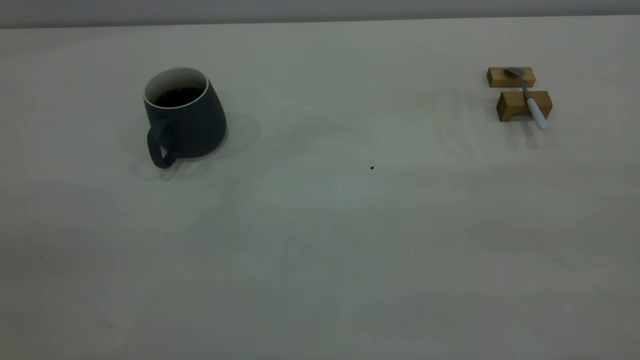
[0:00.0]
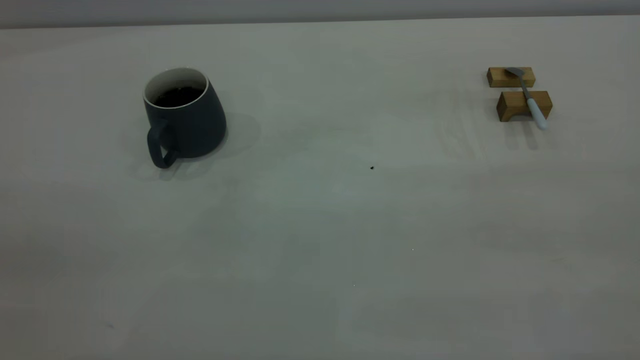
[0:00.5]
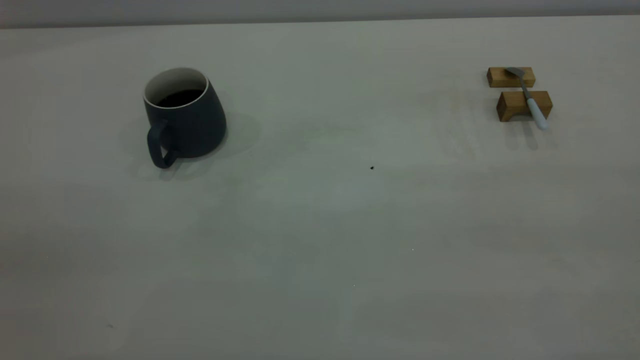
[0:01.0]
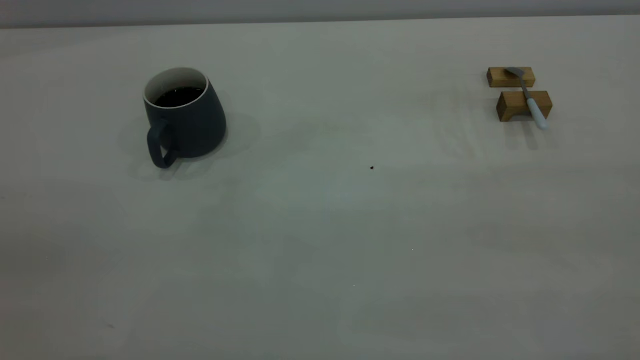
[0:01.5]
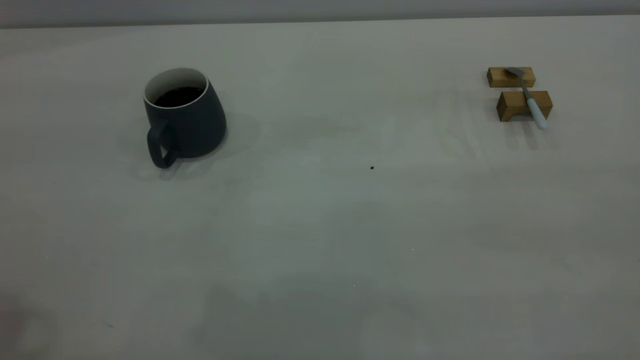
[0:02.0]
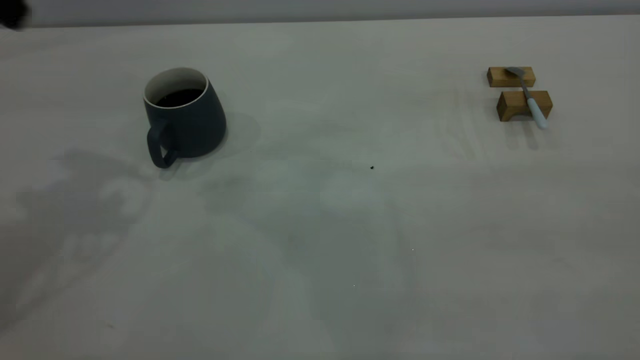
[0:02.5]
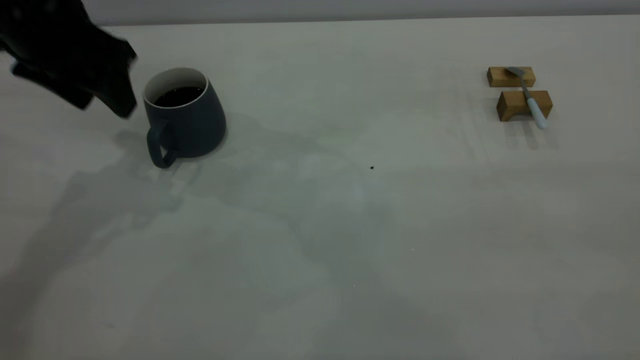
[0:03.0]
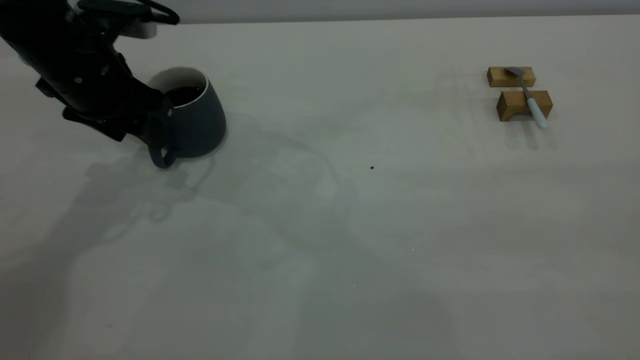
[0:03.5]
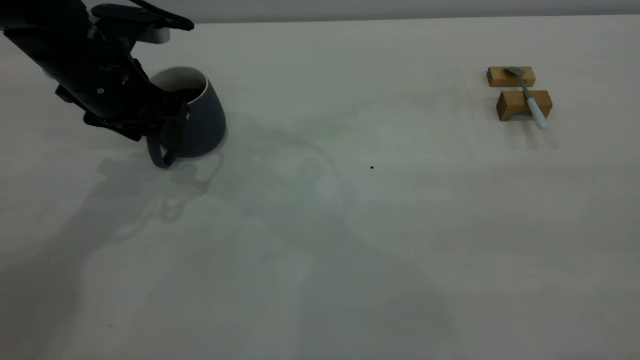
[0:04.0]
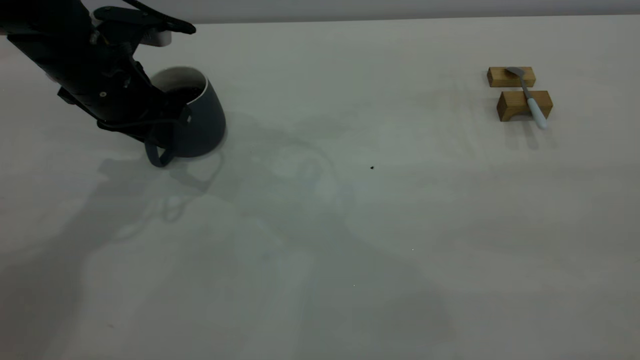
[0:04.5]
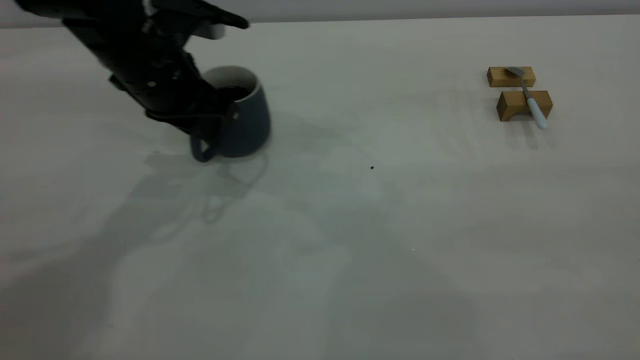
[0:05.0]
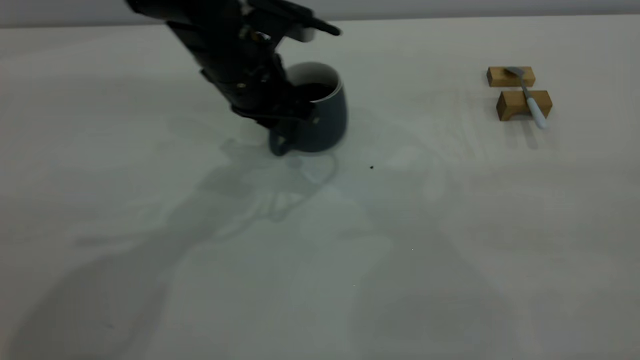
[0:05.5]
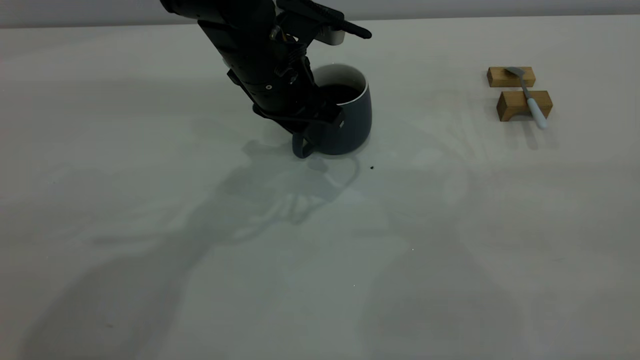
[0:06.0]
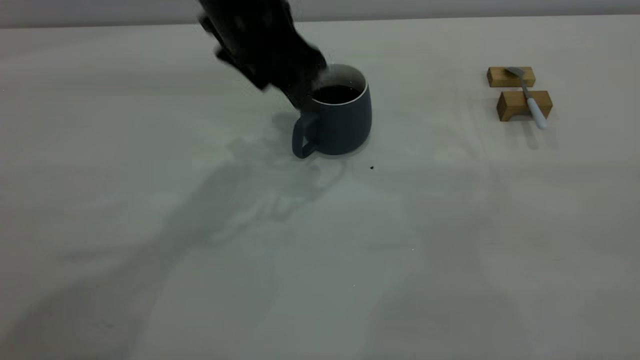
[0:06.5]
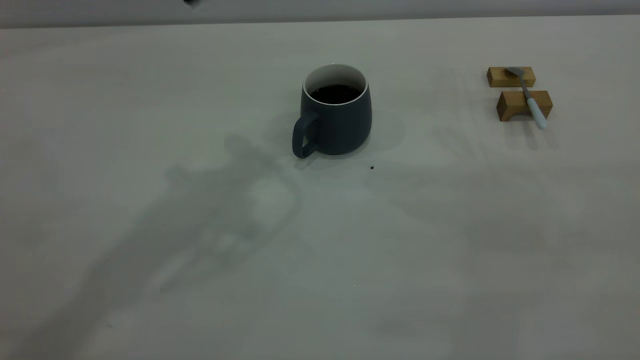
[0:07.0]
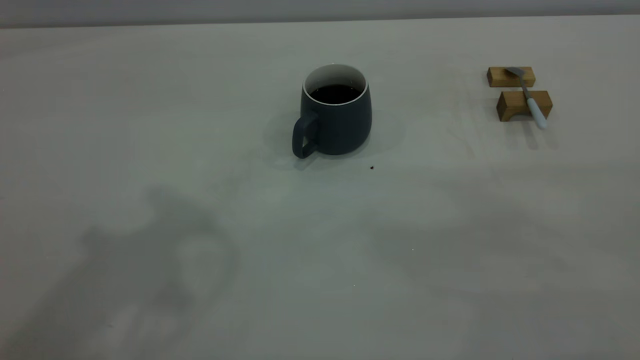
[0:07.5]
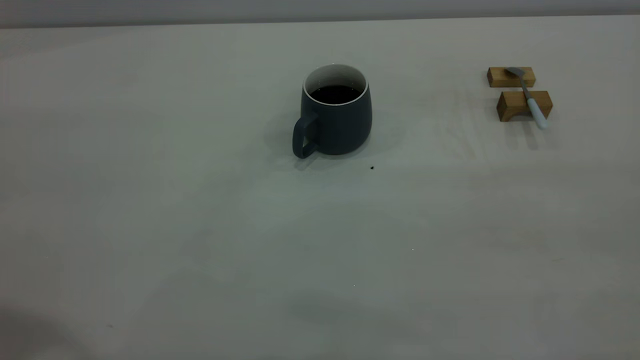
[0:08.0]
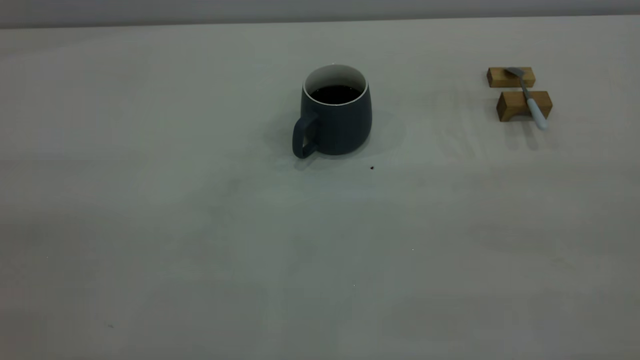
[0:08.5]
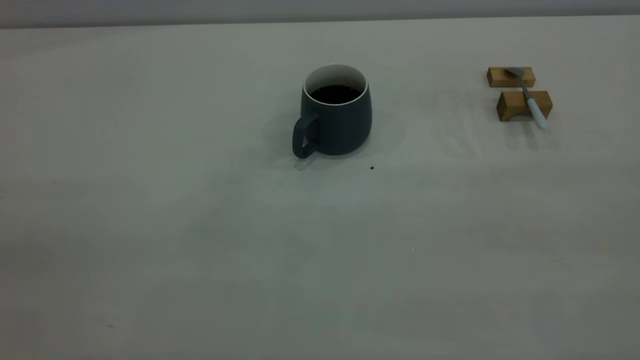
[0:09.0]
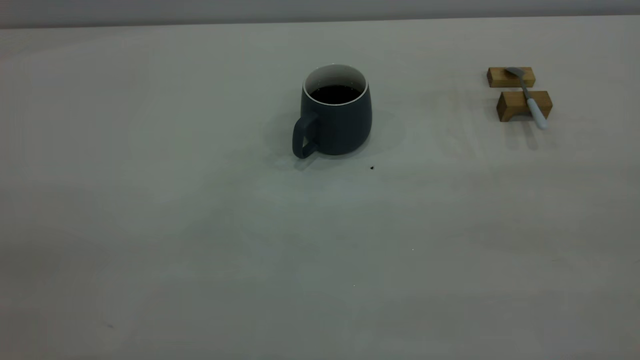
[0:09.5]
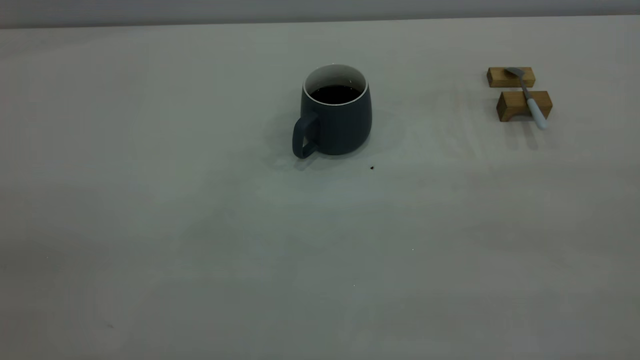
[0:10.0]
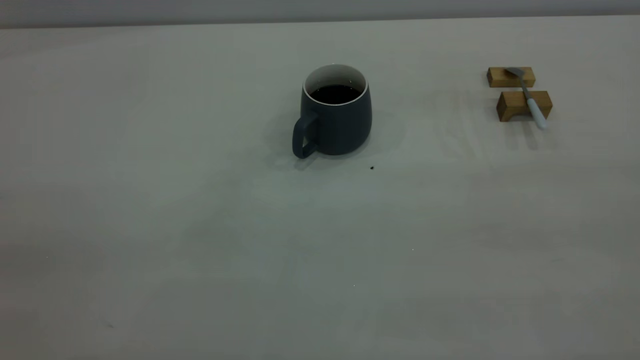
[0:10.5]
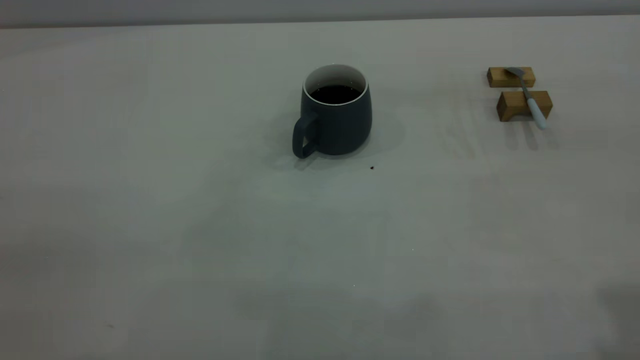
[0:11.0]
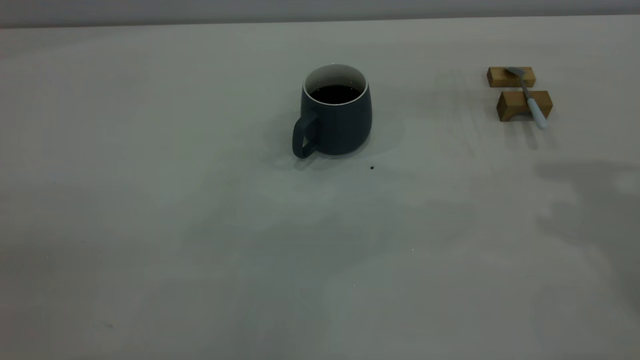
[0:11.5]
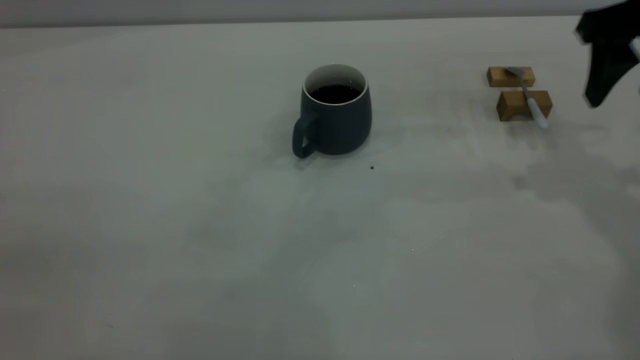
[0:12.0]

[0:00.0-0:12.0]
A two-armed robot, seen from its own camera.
Step, 0:02.5 to 0:06.0: Move the cup in the center of the table with left gripper.
0:02.0 to 0:04.0: The left gripper shifts about 35 cm downward and forward.
0:04.0 to 0:06.0: The left gripper shifts some 15 cm to the right, and closes, then opens again.
0:06.0 to 0:08.0: The left gripper shifts about 40 cm backward, upward and to the left, and opens, then closes again.
0:10.0 to 0:12.0: The right gripper travels forward and downward by approximately 40 cm, and opens.

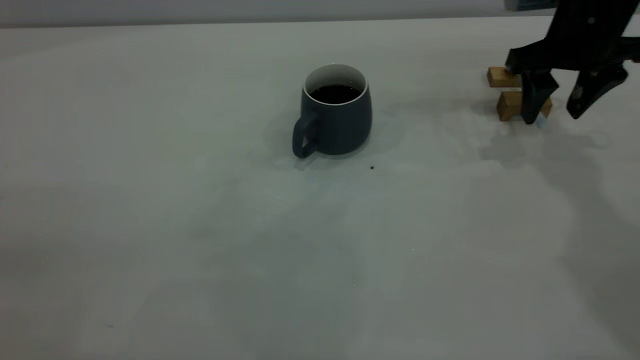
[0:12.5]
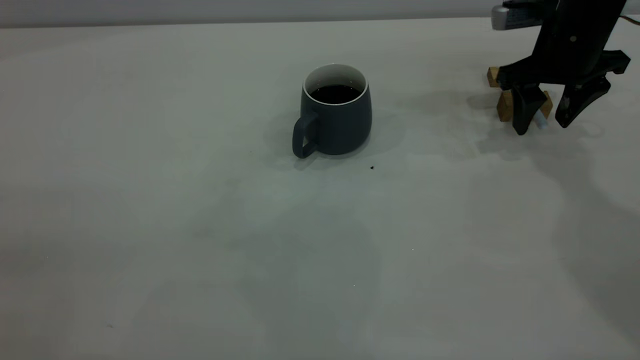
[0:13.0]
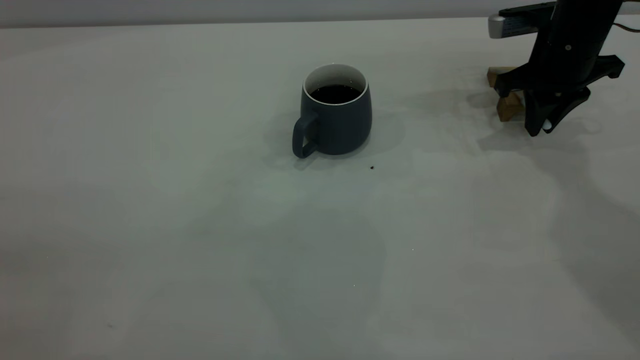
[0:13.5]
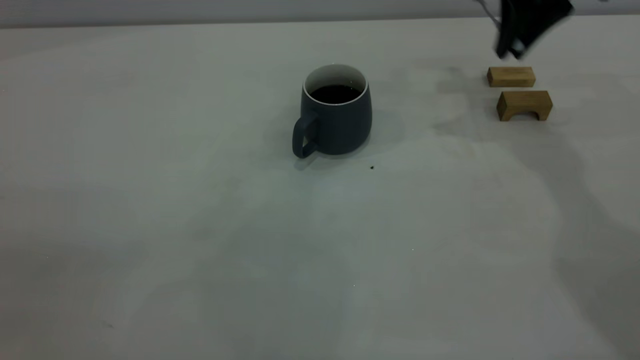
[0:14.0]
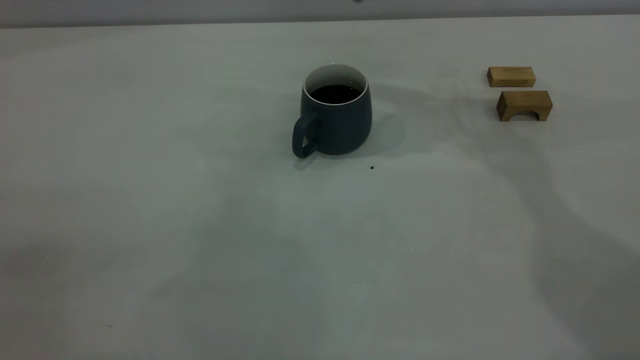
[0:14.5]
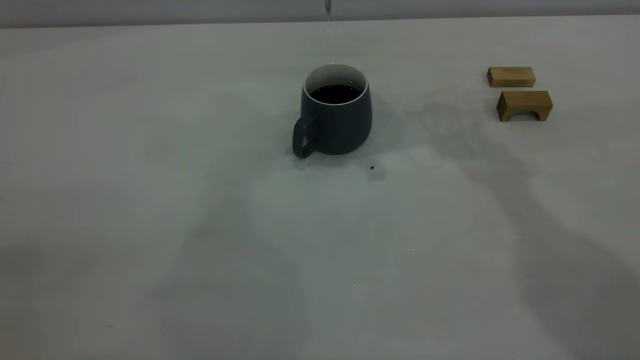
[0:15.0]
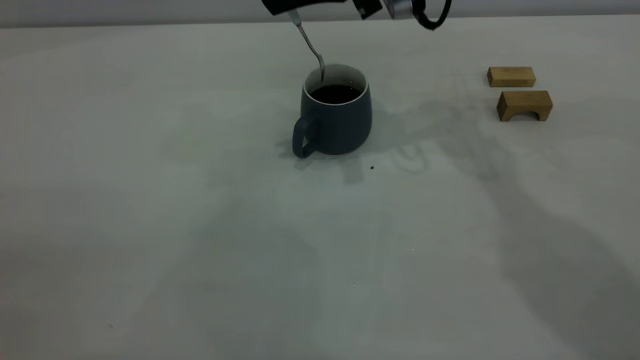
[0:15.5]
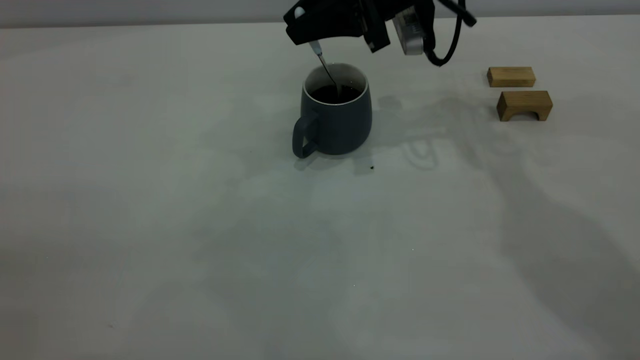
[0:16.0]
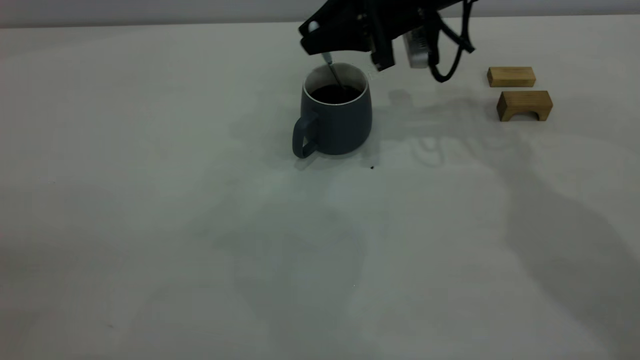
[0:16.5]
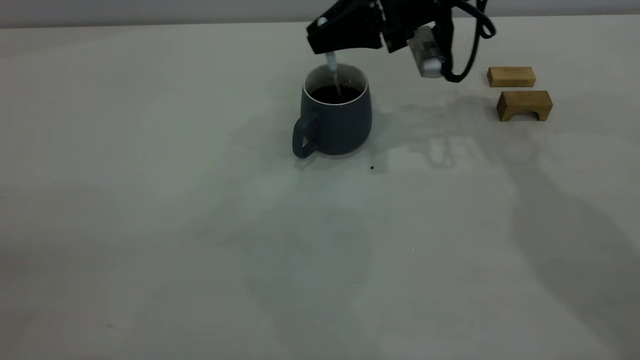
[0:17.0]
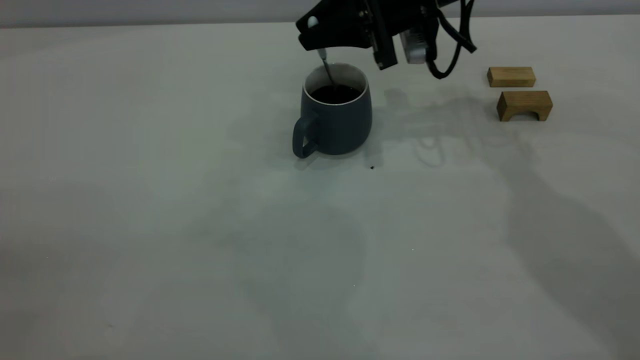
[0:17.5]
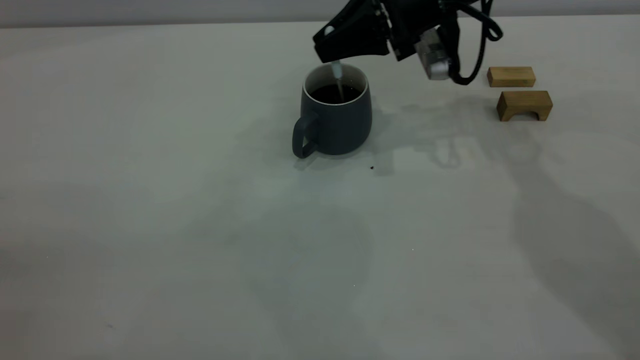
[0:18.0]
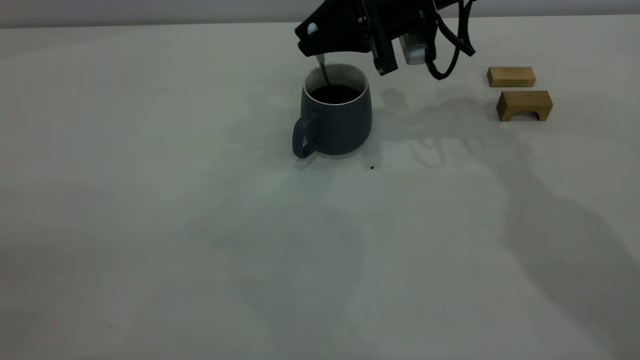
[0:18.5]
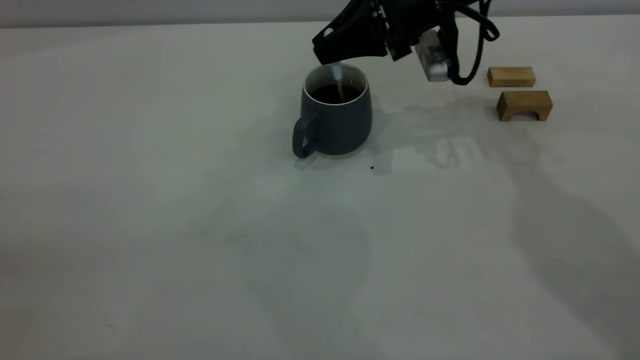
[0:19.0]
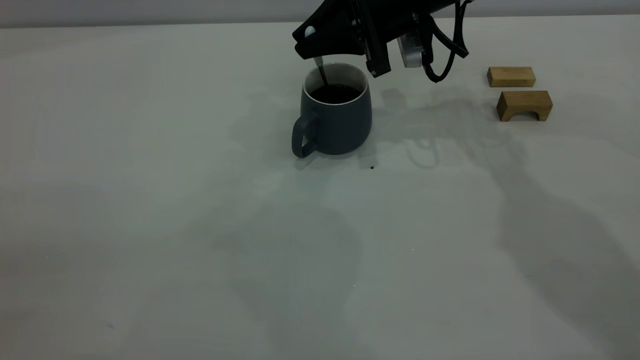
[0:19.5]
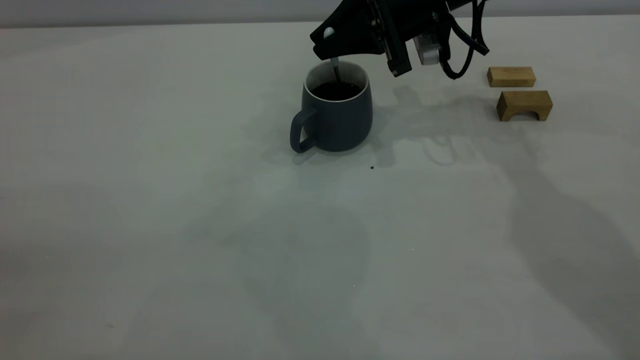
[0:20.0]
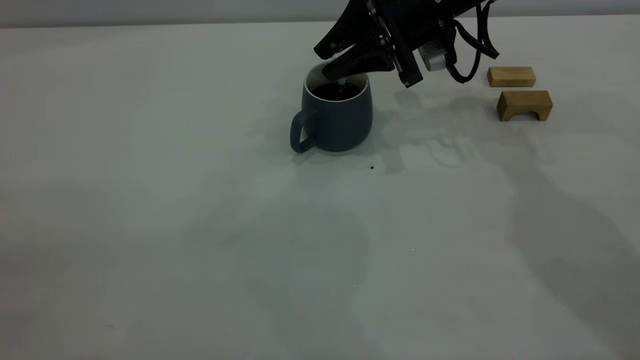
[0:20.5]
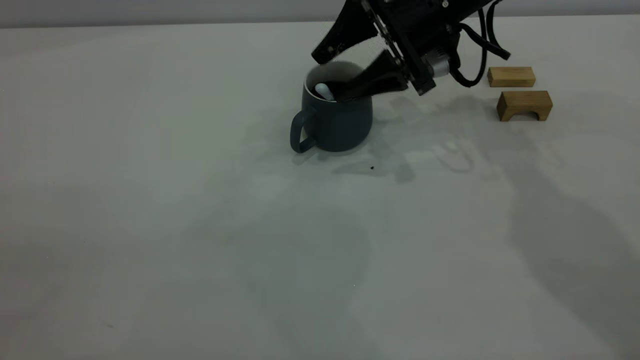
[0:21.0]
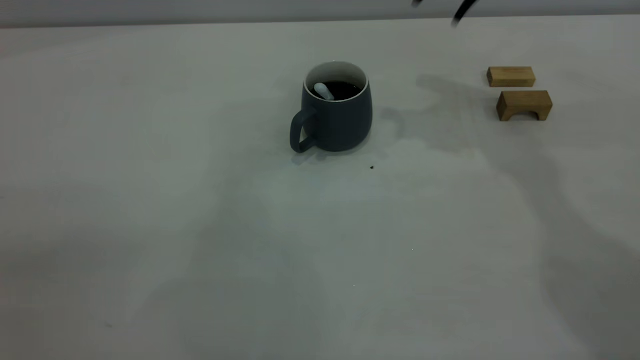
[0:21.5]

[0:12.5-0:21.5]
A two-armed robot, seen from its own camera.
Step, 0:14.0 to 0:20.5: Stir the coffee with right gripper.
0:12.5 to 0:14.5: The right gripper goes about 20 cm to the left and upward, and closes its fingers.
0:14.5 to 0:17.0: The right gripper travels downward by roughly 10 cm.
0:19.5 to 0:21.5: The right gripper shifts about 15 cm upward and to the right, and opens up.
